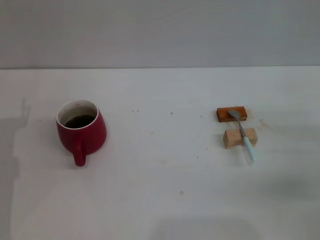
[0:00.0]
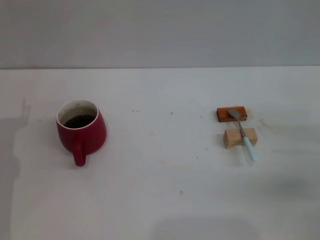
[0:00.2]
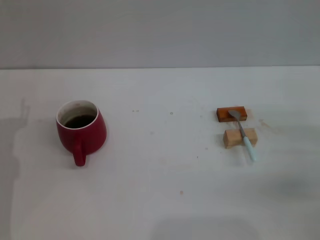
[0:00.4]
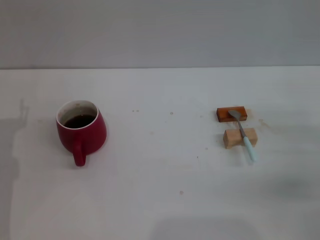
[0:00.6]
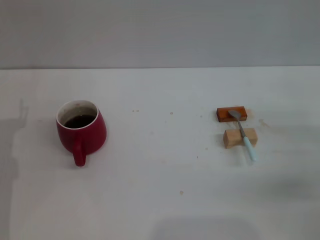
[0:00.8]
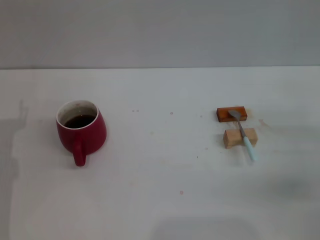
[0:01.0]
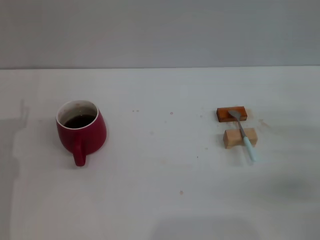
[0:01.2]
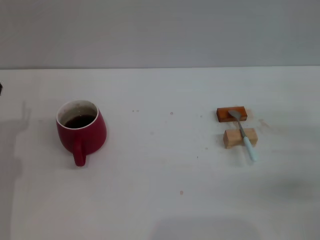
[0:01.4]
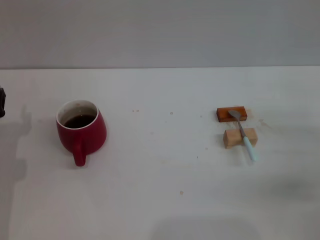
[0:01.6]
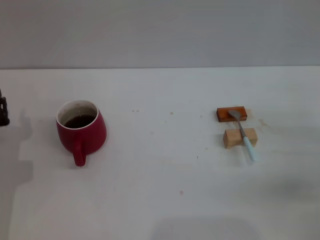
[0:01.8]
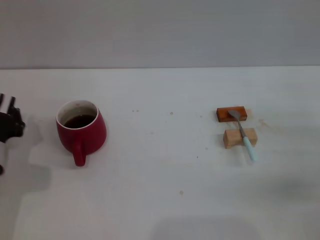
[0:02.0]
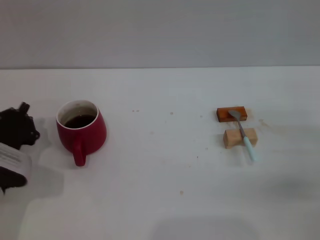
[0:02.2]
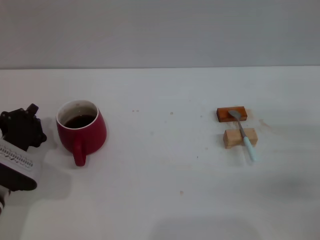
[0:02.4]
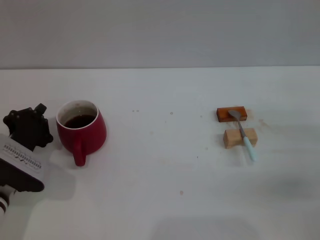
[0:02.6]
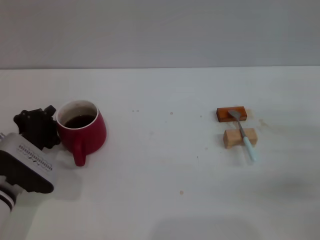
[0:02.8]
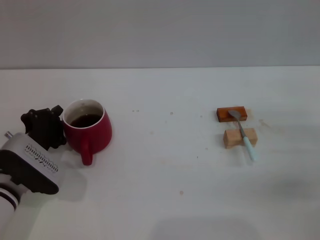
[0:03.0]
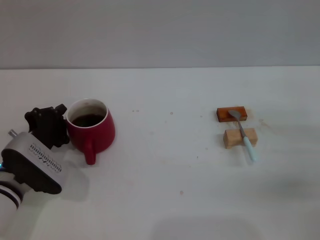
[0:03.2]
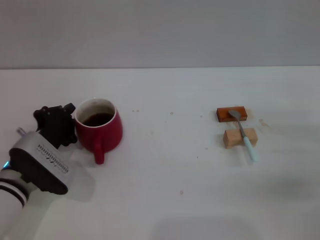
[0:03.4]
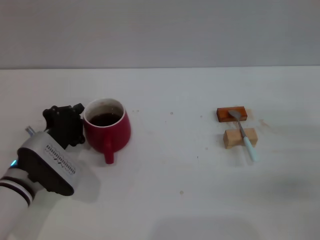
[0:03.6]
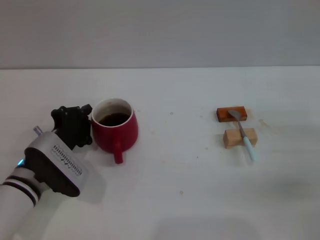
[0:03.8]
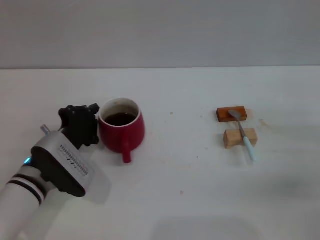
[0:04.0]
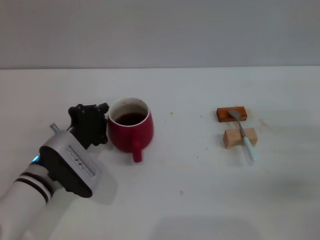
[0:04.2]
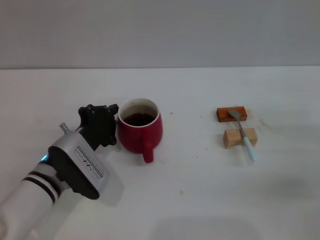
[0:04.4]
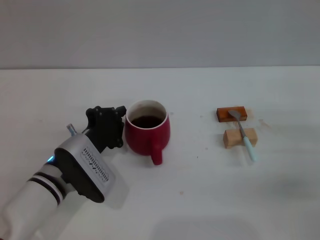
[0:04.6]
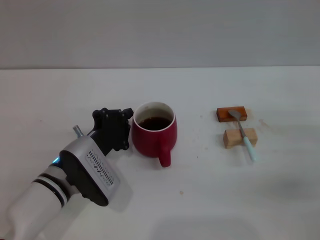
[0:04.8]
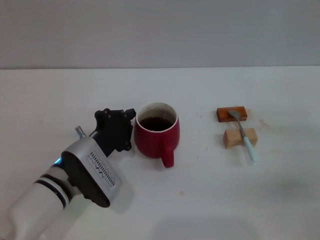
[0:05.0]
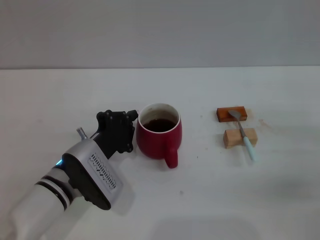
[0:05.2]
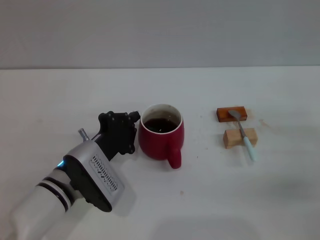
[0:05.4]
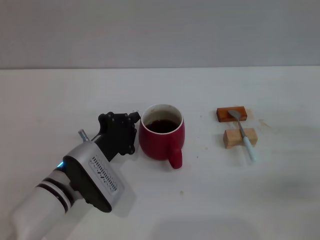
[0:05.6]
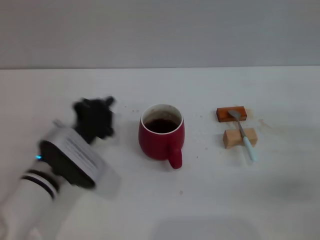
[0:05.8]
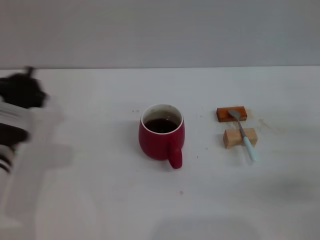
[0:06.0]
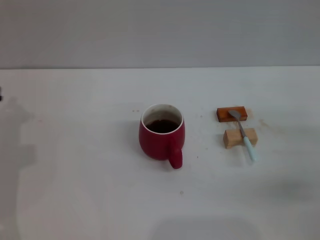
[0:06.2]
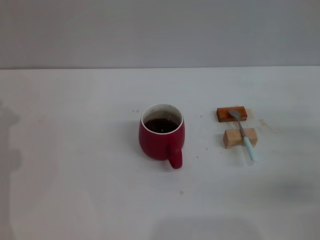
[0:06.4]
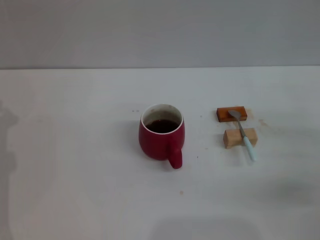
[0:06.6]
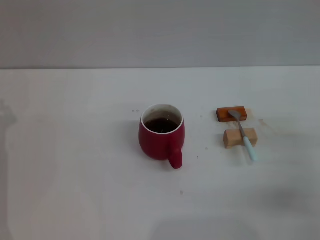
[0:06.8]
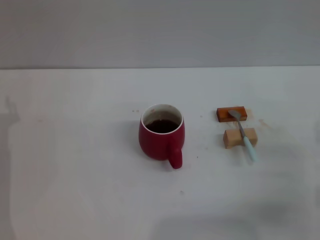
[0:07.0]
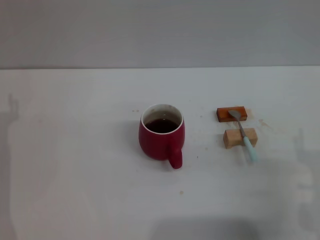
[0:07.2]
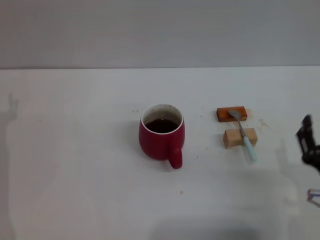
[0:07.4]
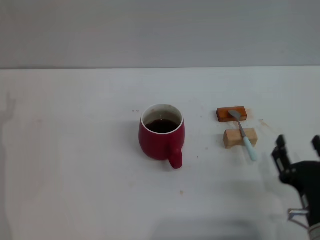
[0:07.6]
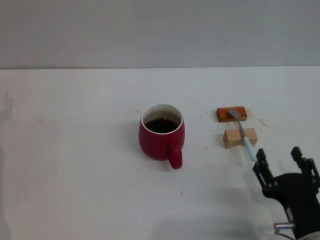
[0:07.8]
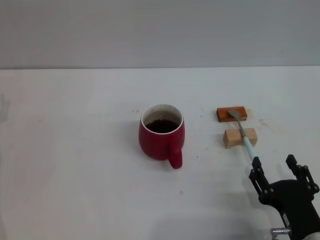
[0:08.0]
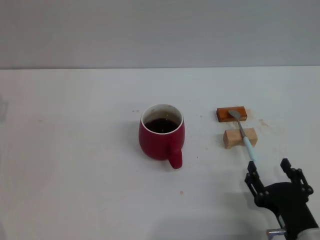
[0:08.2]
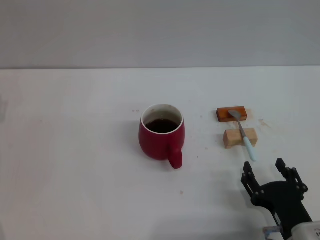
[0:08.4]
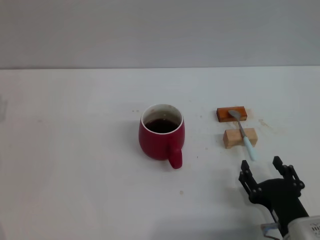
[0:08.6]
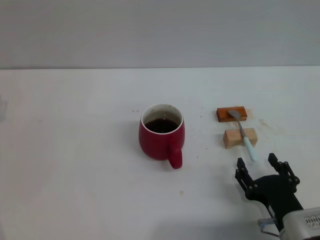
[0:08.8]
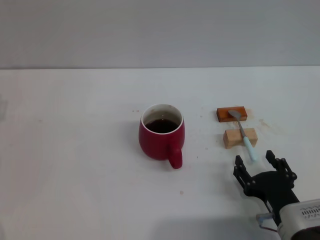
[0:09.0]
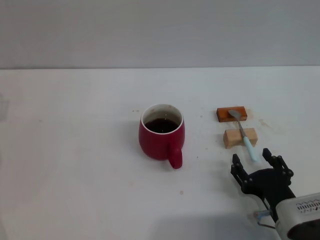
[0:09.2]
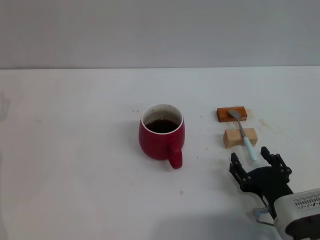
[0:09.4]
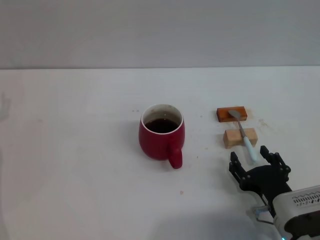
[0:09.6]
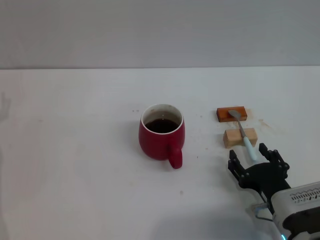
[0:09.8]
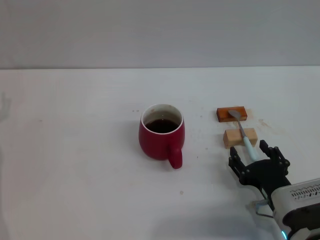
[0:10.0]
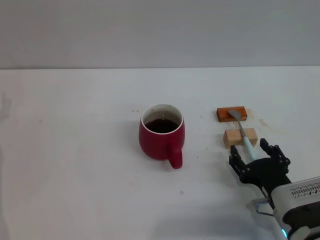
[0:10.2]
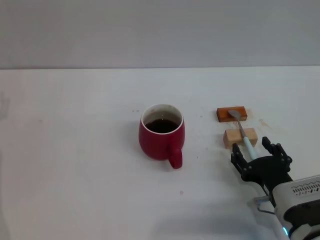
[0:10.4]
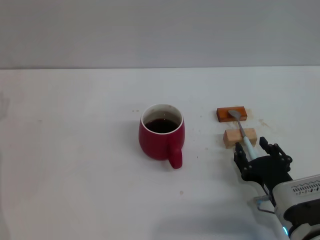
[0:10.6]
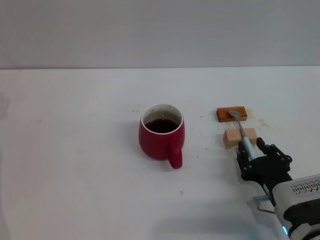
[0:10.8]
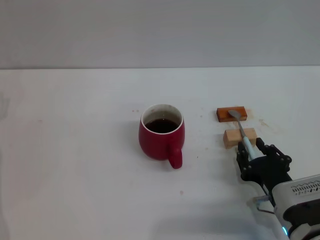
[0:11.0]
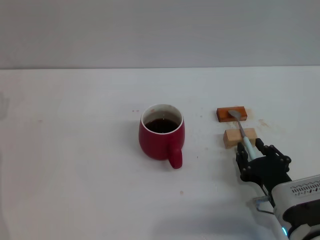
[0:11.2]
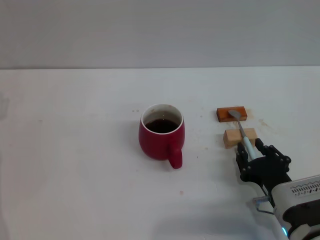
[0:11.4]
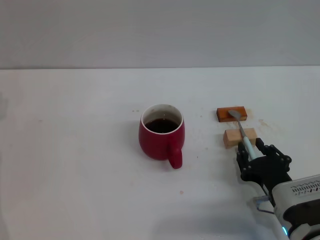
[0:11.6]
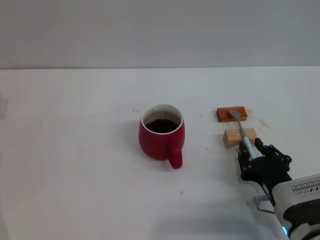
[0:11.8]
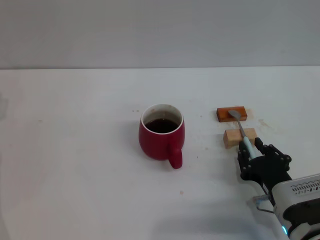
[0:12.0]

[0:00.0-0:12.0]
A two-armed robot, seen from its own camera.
Task of the whole recording: Move the red cup to the center, lift the blue spoon, stir it three times in the cup, and put the spoon into the cup.
Step, 0:01.2 to 0:05.6: Move the cup in the center of the table with left gripper.
0:01.6 to 0:03.0: The left gripper is displaced to the right by approximately 5 cm, and closes.
0:03.0 to 0:04.4: The left gripper goes about 5 cm to the right.
0:04.4 to 0:06.0: The left gripper travels to the left by roughly 5 cm.
0:06.0 to 0:07.6: The left gripper shifts approximately 10 cm to the left, and opens; the right gripper goes some 15 cm to the left and backward.
0:07.6 to 0:10.4: There are only small adjustments of the grippers.
0:10.4 to 0:12.0: The right gripper closes its fingers.

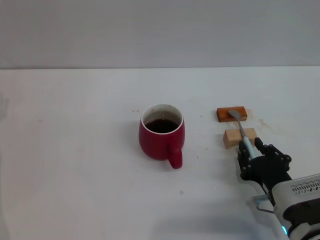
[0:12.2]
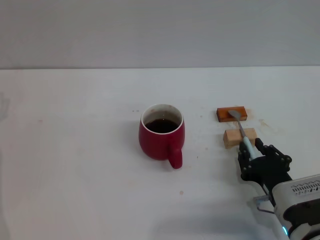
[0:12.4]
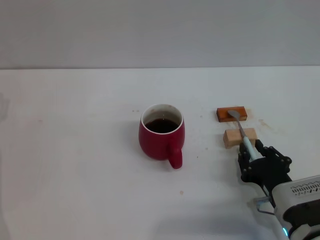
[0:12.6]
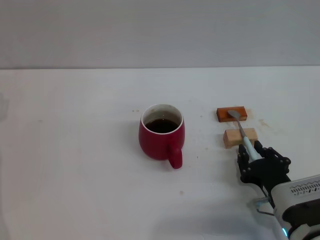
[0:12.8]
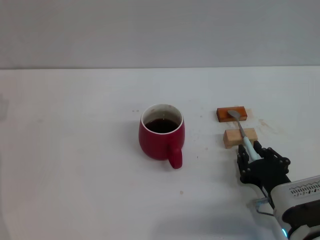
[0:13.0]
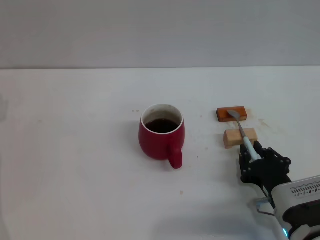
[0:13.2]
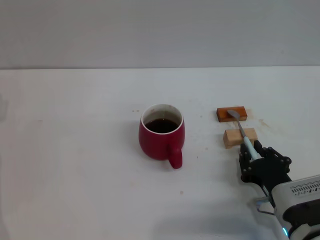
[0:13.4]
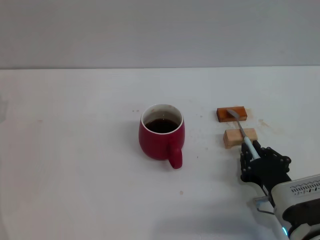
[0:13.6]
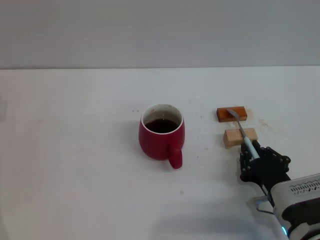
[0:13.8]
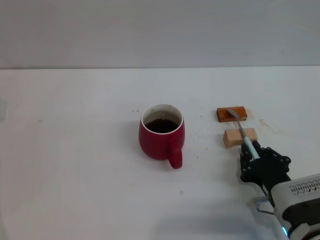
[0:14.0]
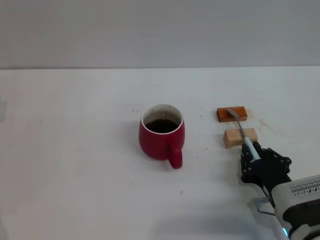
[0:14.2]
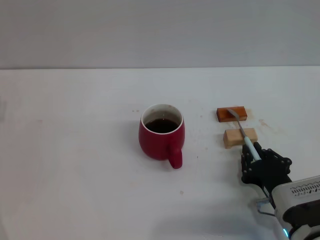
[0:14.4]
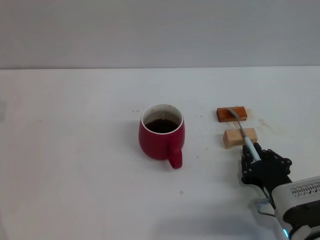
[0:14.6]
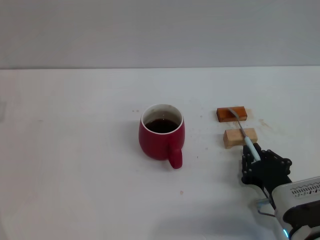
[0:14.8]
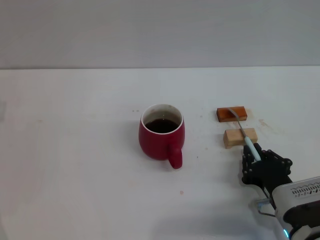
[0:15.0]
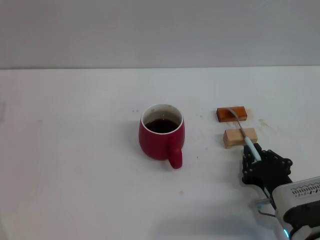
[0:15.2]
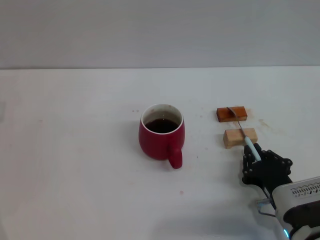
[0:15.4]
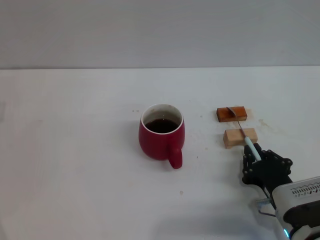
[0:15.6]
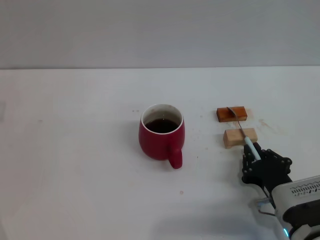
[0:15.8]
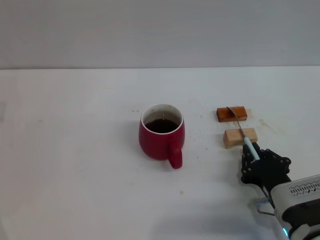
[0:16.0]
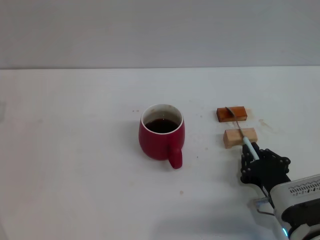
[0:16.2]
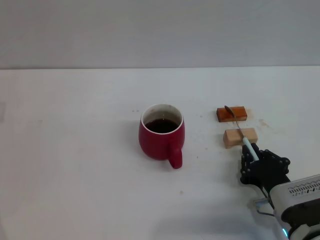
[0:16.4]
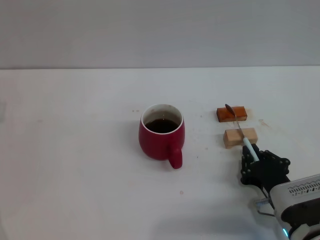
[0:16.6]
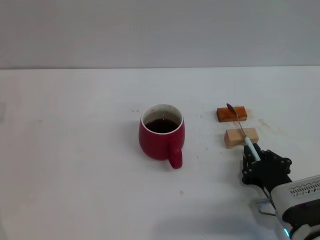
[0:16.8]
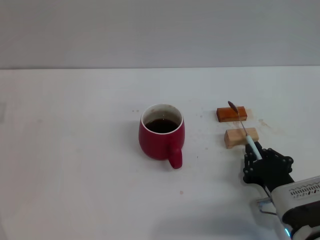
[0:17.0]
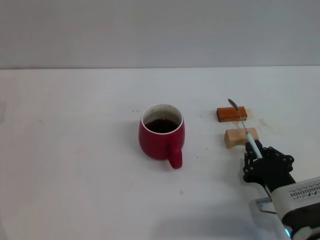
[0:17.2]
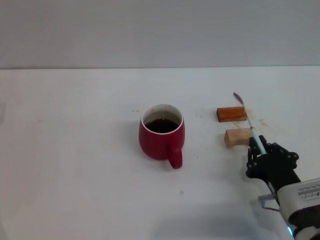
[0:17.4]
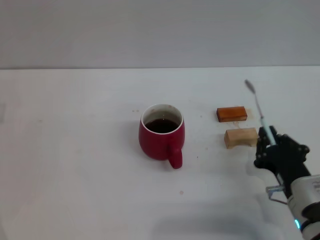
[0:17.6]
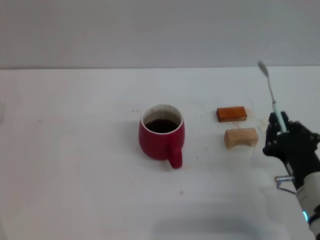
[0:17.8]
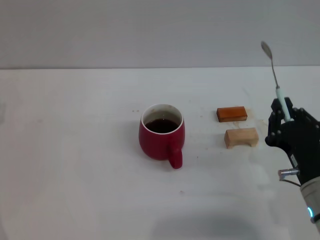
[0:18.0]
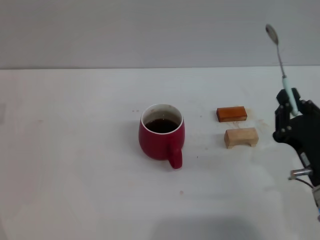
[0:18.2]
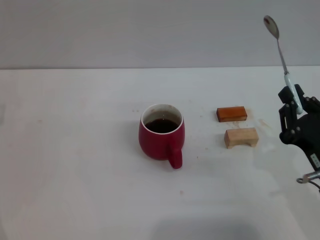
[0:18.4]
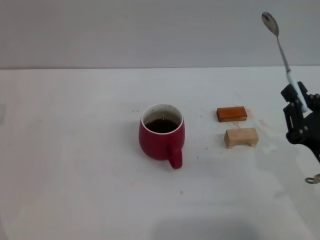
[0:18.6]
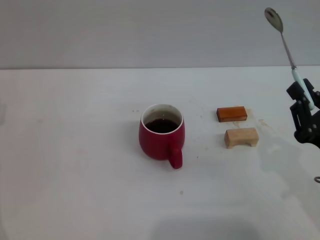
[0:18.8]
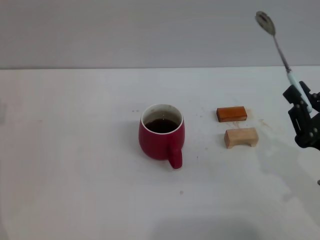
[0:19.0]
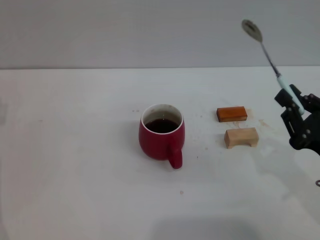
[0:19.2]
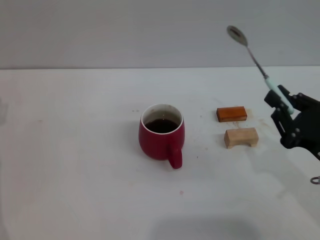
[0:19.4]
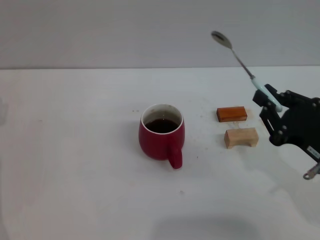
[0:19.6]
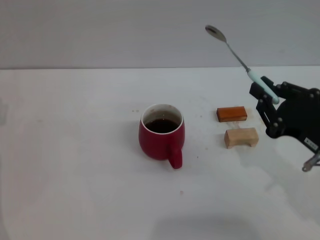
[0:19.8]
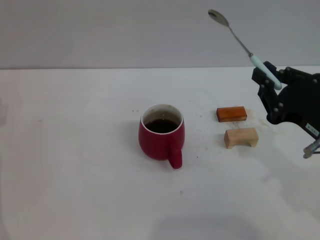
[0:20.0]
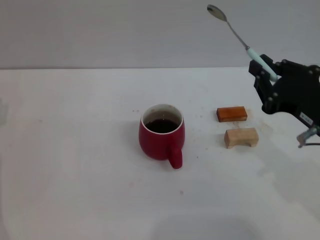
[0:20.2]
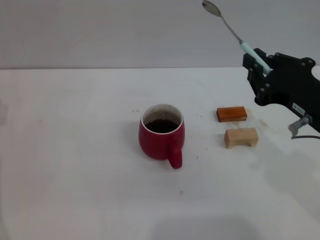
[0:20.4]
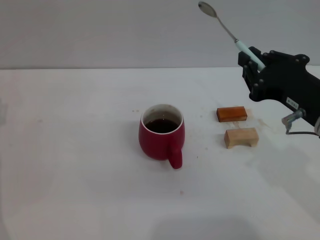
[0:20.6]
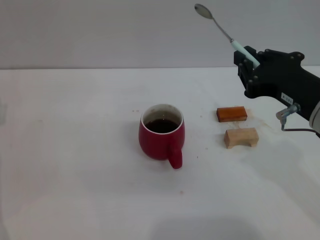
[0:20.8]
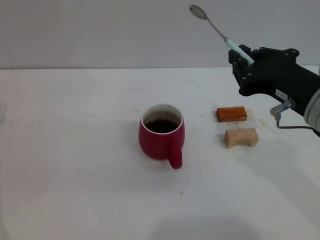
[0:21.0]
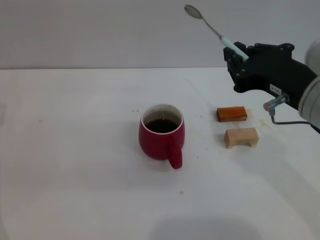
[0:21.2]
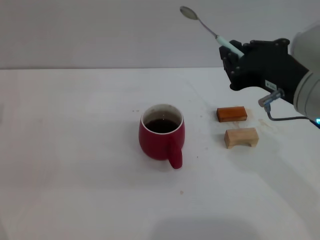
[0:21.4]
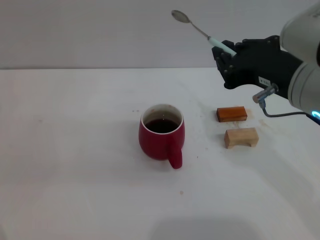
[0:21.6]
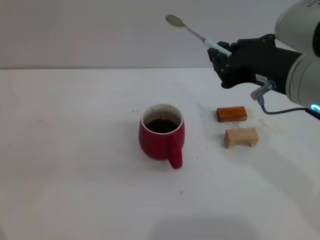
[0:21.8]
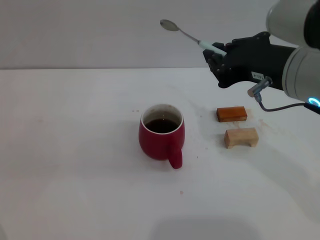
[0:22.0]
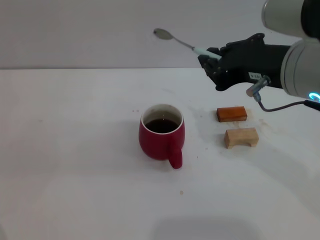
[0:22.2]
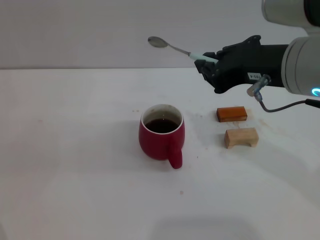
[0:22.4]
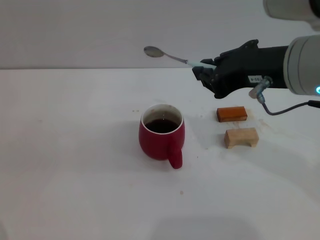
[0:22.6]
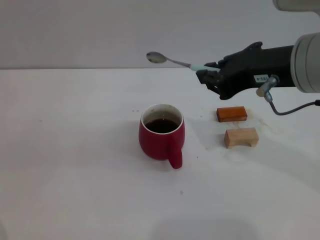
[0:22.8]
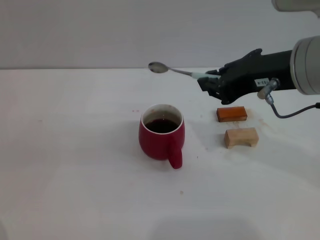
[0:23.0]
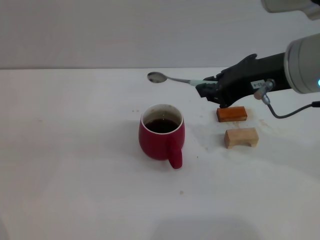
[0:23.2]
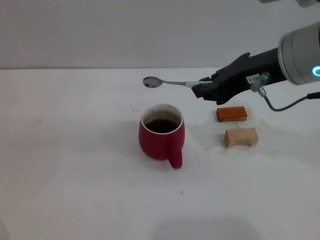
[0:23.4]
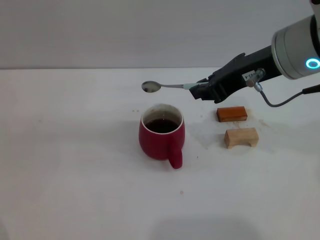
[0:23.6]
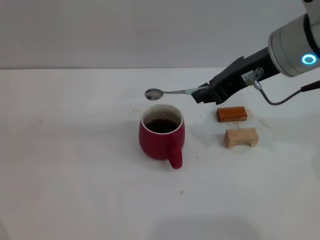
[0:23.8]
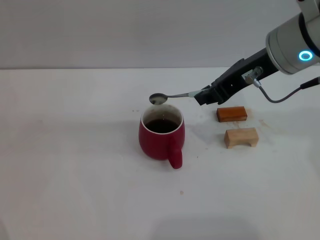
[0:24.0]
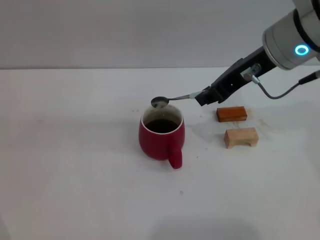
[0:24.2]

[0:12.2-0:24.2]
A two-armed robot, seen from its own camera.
Task of the whole recording: Move the red cup to the center, lift the blue spoon, stir it three times in the cup, and put the spoon into the cup.
0:12.2 to 0:16.6: Both grippers stay about where they are.
0:16.6 to 0:18.2: The right gripper travels upward by some 5 cm.
0:18.2 to 0:19.8: The right gripper heads upward, covering about 5 cm.
0:19.8 to 0:21.2: The right gripper is displaced upward and to the left by approximately 10 cm.
0:21.2 to 0:22.6: The right gripper is displaced upward by approximately 5 cm.
0:22.6 to 0:24.2: The right gripper is displaced forward by roughly 10 cm.
